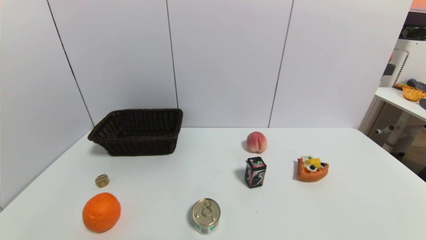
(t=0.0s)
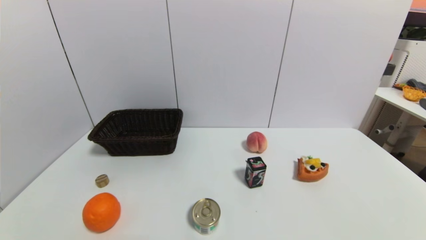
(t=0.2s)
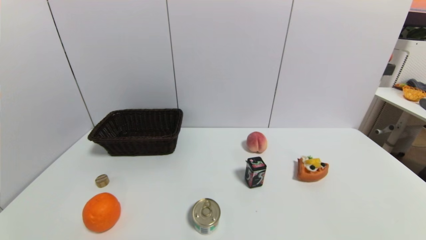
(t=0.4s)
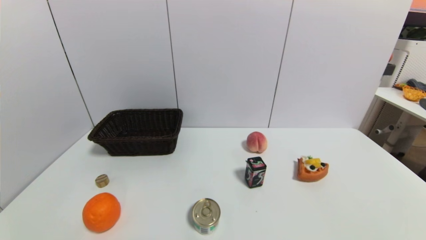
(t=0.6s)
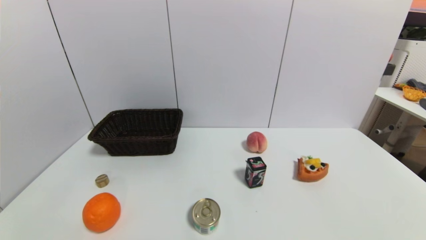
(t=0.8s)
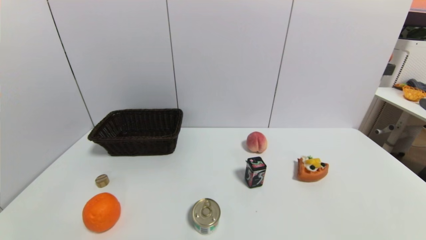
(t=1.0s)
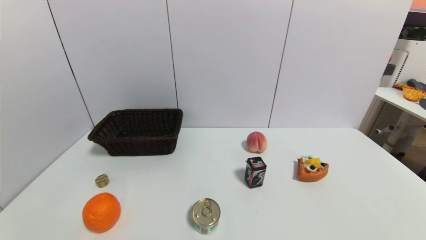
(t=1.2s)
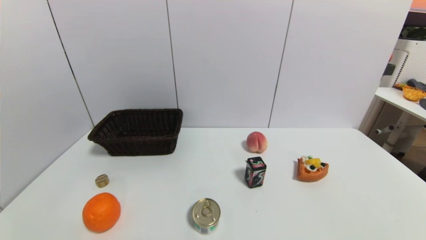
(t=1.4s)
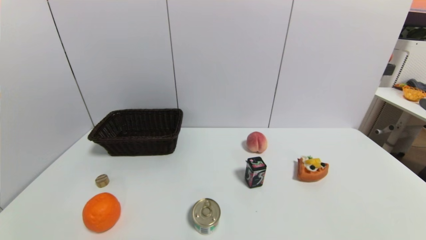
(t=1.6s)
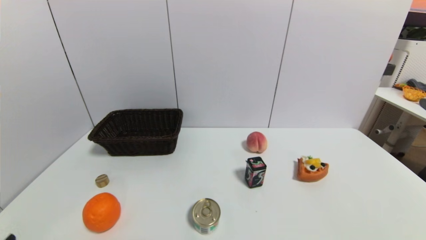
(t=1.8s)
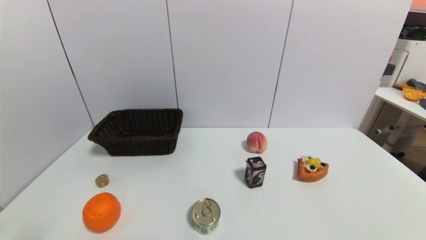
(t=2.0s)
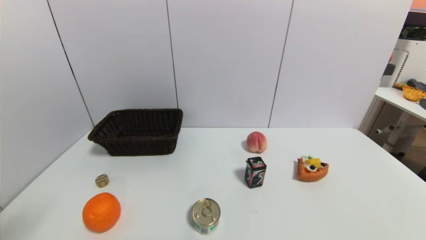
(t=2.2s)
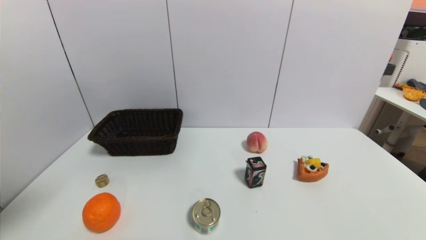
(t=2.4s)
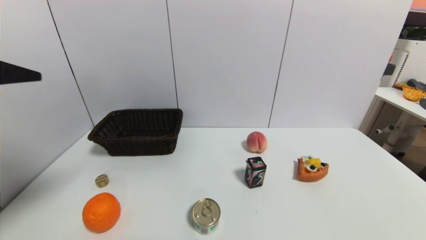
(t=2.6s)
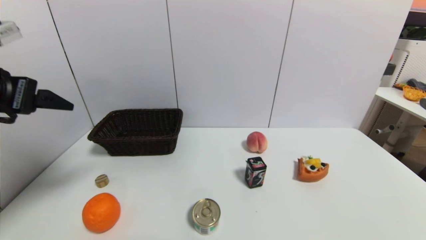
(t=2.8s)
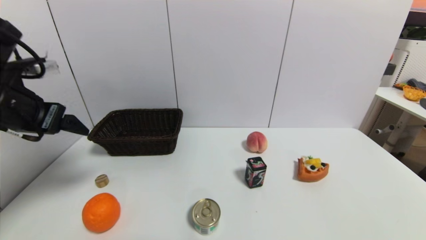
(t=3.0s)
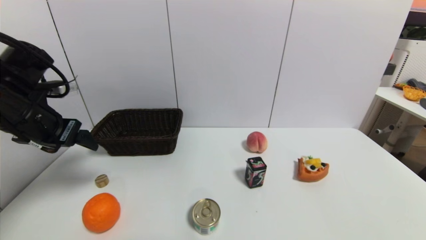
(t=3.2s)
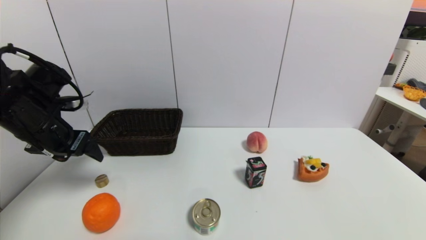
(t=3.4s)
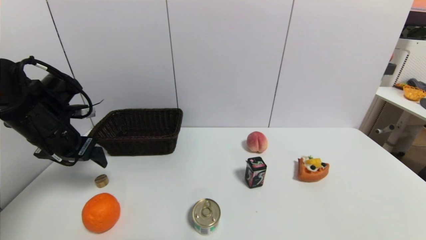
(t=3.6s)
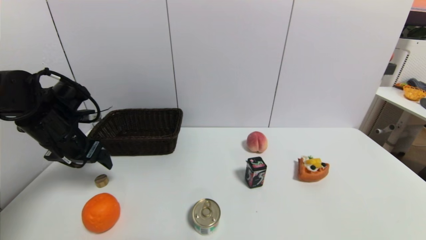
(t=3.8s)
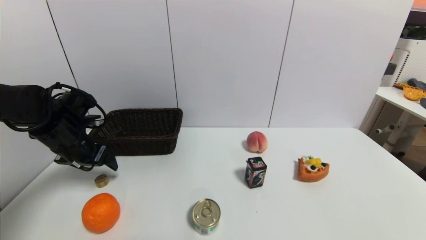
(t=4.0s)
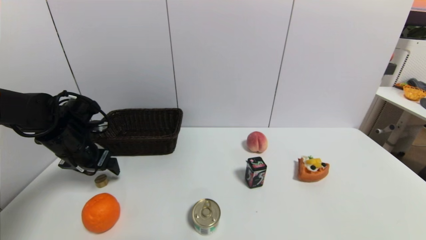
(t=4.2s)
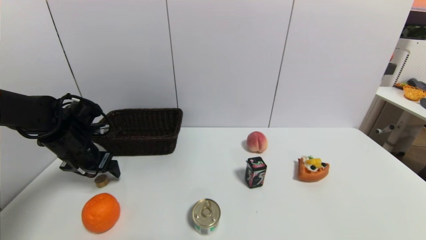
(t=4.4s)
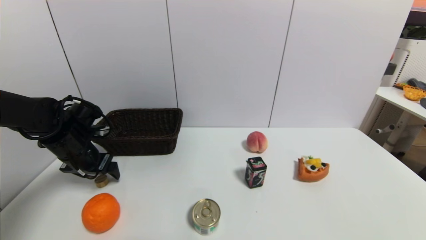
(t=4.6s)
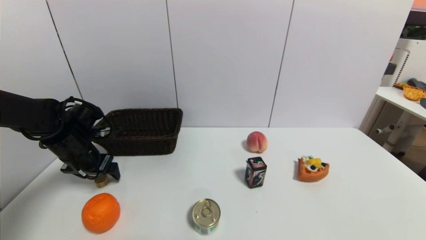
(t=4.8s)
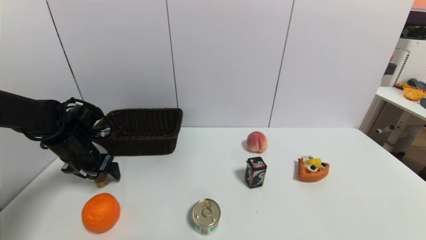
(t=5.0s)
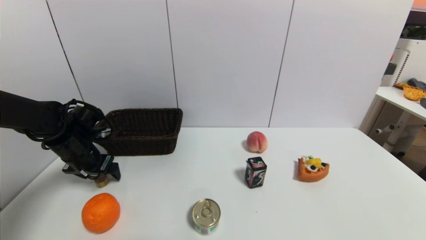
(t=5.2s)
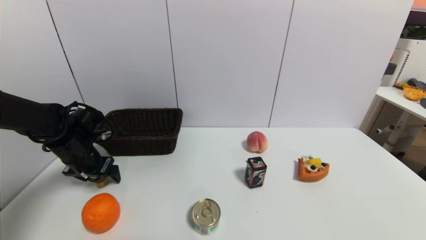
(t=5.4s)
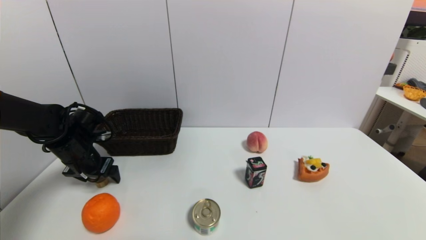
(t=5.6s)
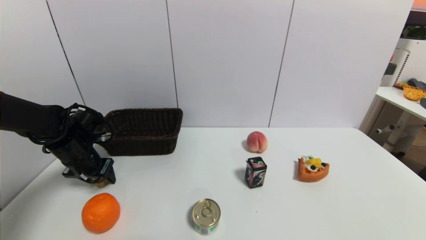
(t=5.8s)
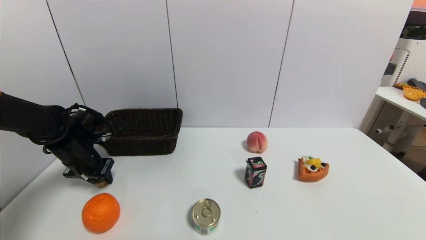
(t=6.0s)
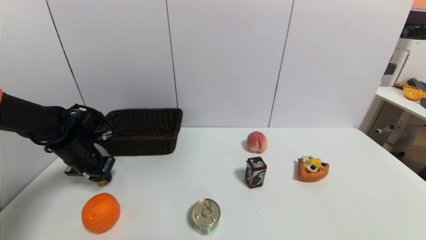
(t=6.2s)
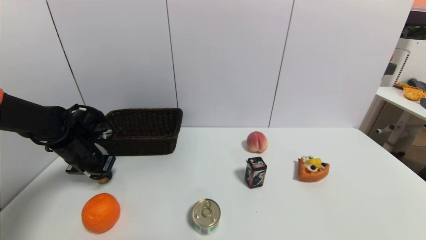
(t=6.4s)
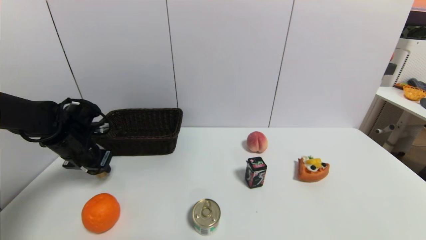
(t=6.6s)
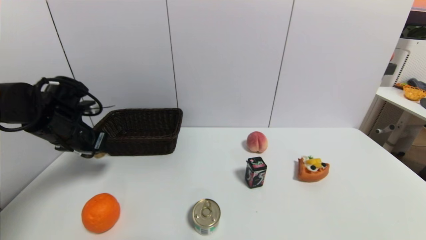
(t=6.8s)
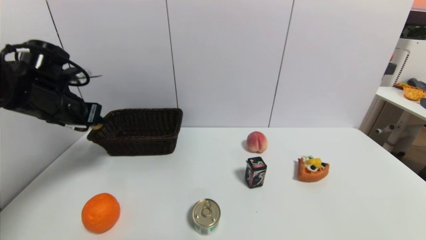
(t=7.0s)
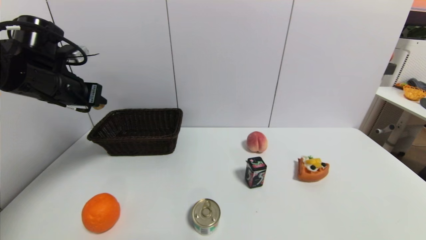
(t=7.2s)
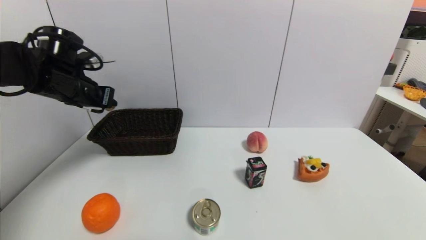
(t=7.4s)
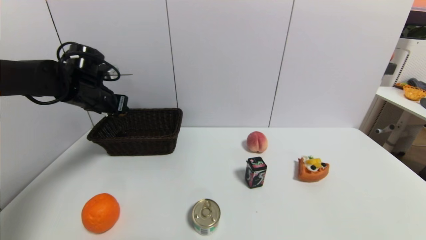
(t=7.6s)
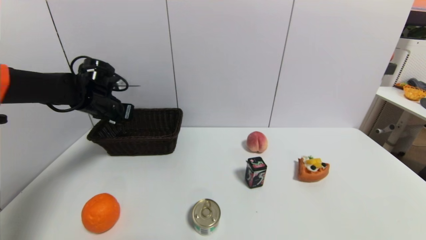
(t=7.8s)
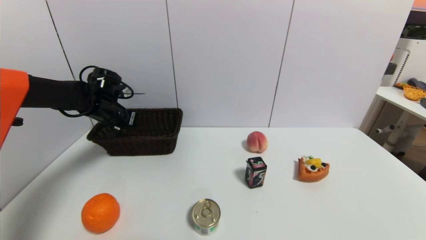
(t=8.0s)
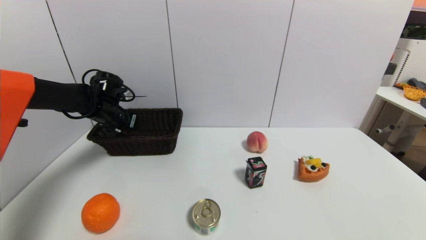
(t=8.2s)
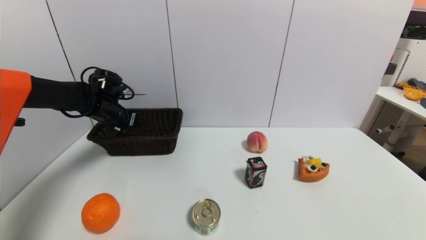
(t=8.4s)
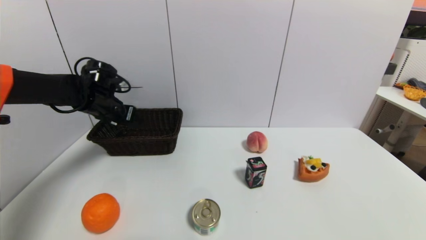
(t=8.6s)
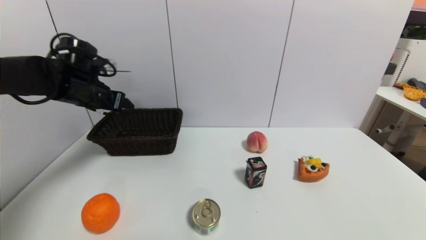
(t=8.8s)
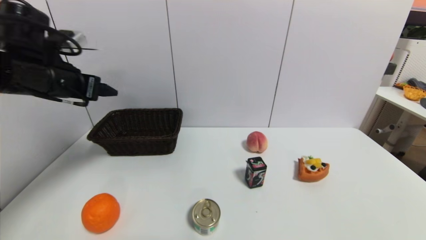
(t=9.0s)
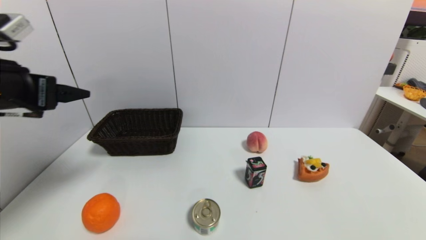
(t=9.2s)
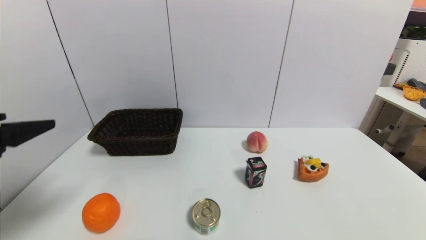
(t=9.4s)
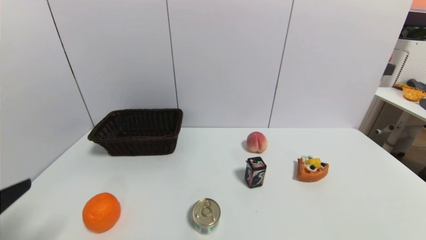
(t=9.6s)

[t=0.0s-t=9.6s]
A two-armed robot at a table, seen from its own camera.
Task of the whole recording: use a gripper to pick the target object and place on the brown basket.
Step, t=0.0s to t=6.2s: Grasp the round wooden block with the left gripper.
Step, t=6.4s to t=8.6s: Place the round wooden block into the basket with the left gripper.
t=0.0s to t=1.6s: Neither gripper changes place.
t=1.6s to t=3.2s: The left gripper goes roughly 35 cm forward and upward.
t=3.2s to t=4.8s: The left gripper travels downward and forward by about 15 cm.
t=4.8s to t=6.4s: The left gripper closes its fingers.
t=6.4s to t=8.0s: The left gripper travels forward and upward by some 10 cm.
t=8.0s to t=9.6s: The left gripper heads backward, covering approximately 40 cm, and opens.

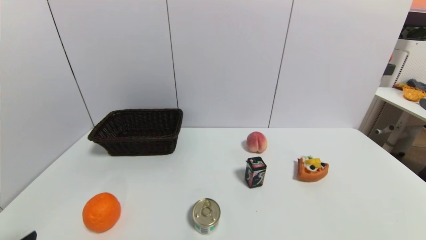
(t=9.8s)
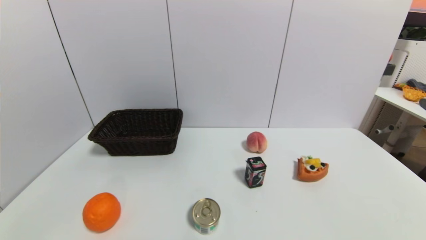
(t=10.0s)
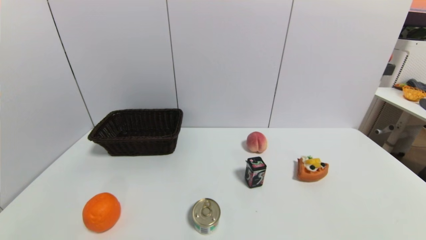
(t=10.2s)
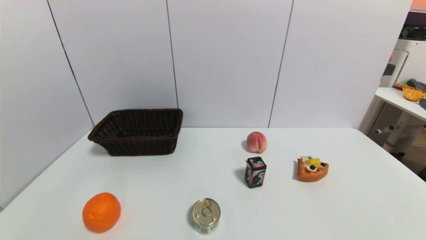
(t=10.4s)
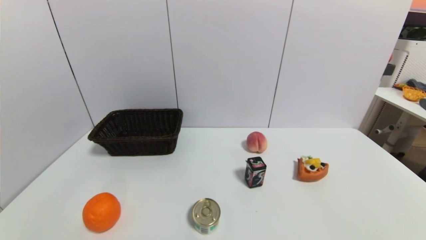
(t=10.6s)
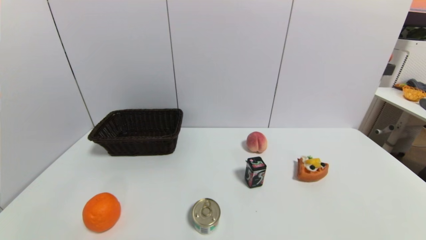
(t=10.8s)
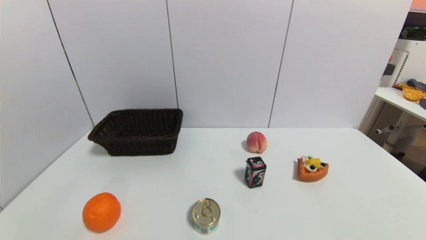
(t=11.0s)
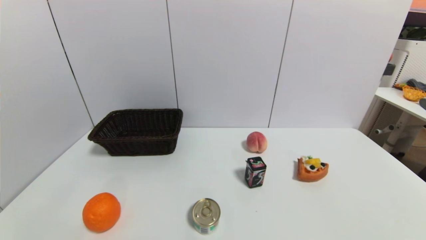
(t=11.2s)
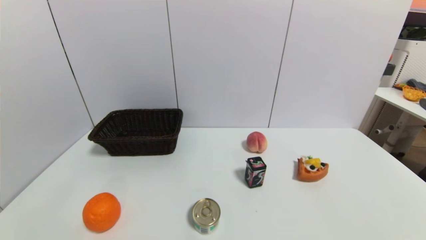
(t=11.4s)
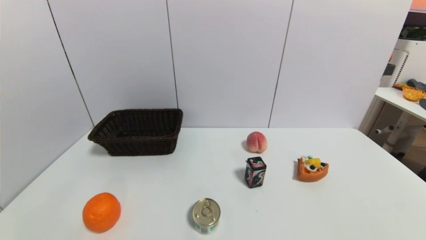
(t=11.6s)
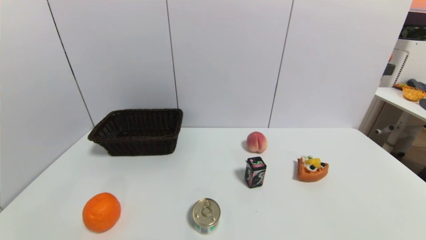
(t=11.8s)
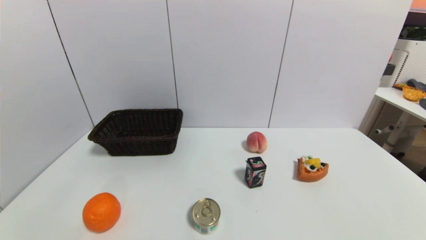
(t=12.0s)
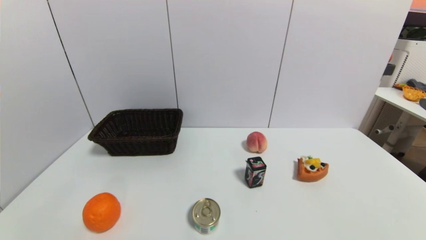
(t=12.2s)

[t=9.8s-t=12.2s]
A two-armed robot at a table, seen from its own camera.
Task of the whole recording: use a gripper to pick the target object and place on the brown basket.
t=11.0s to t=12.2s: Both grippers stay about where they are.
